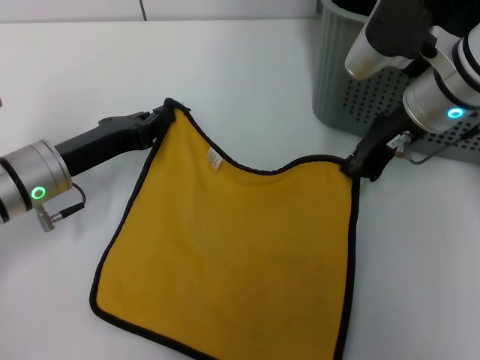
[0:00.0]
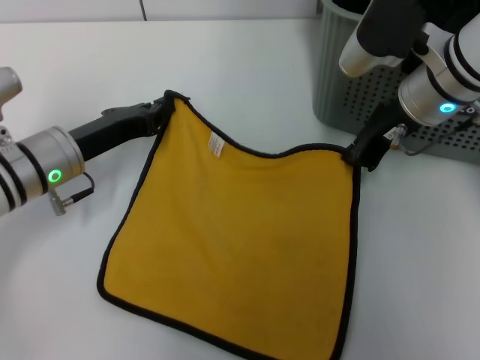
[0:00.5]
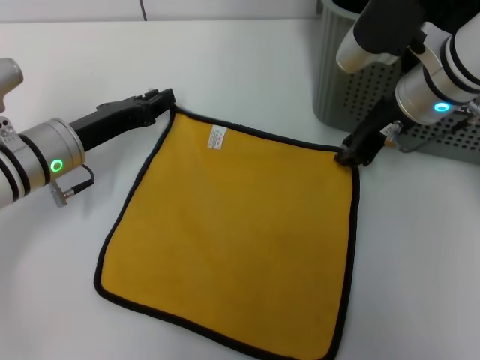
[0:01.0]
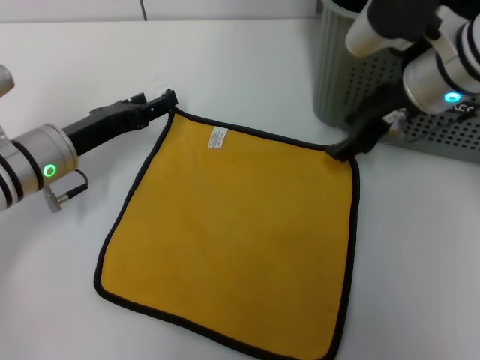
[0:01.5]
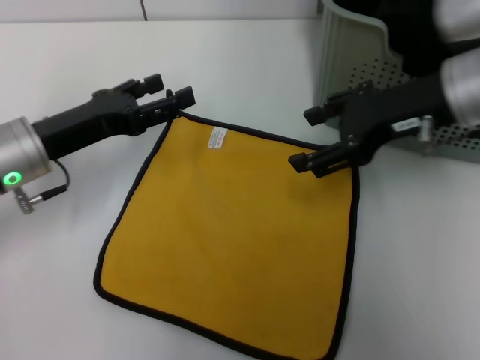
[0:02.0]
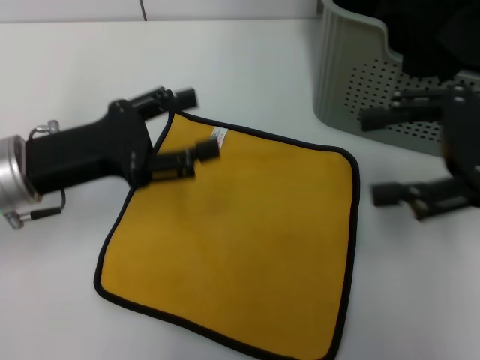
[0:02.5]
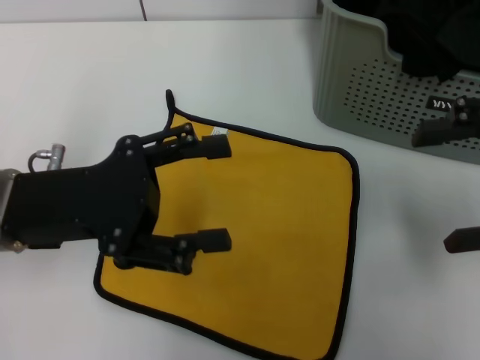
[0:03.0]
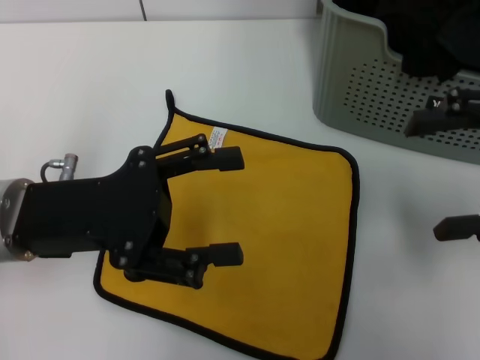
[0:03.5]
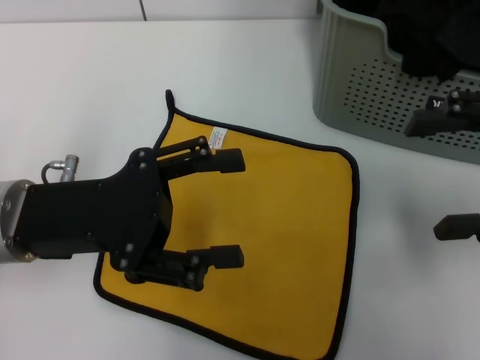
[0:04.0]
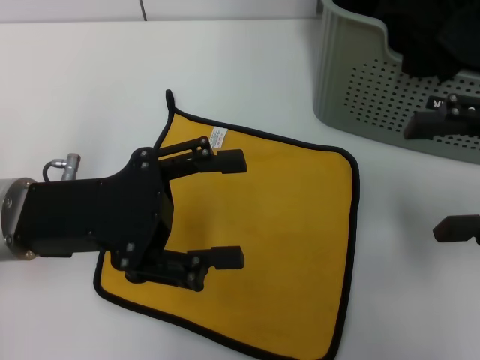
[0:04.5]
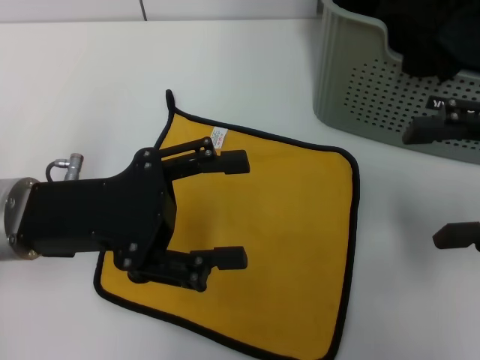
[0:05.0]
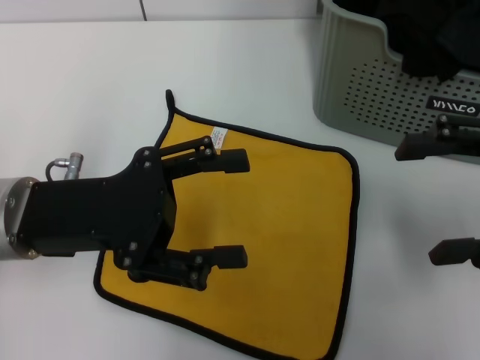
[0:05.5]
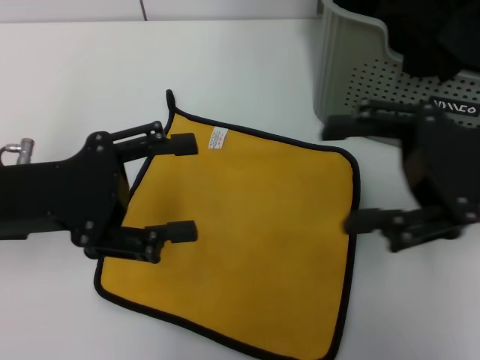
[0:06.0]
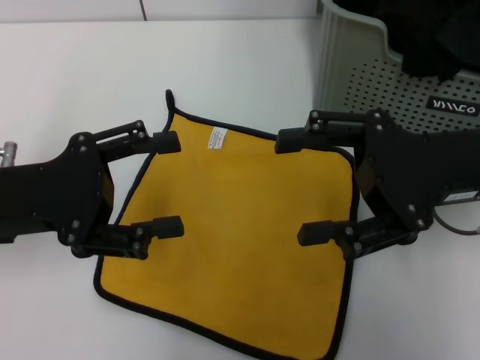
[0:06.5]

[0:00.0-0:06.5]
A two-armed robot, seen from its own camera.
Task of the whole recording: pick up the towel from the storage box and lay it flat on the table.
0:00.0 to 0:02.0: The right gripper shifts by roughly 5 cm, and opens up, while the left gripper opens up.
0:02.0 to 0:04.5: The left gripper moves backward, approximately 5 cm; the right gripper heads to the right and backward, covering some 15 cm.
0:04.5 to 0:06.5: The right gripper heads to the left, covering roughly 10 cm.
